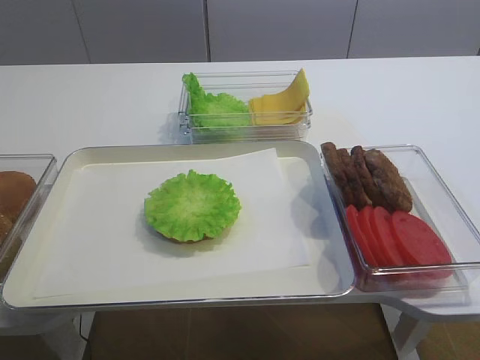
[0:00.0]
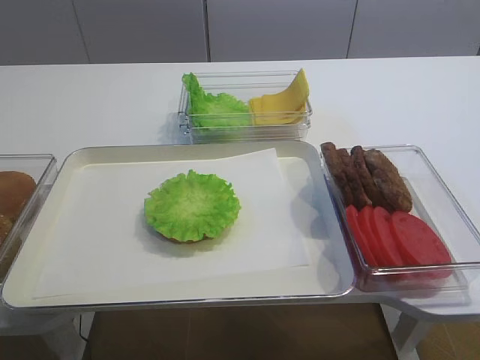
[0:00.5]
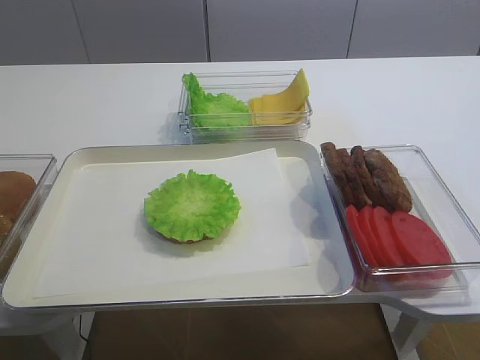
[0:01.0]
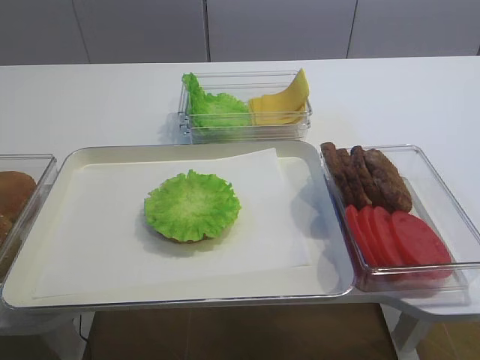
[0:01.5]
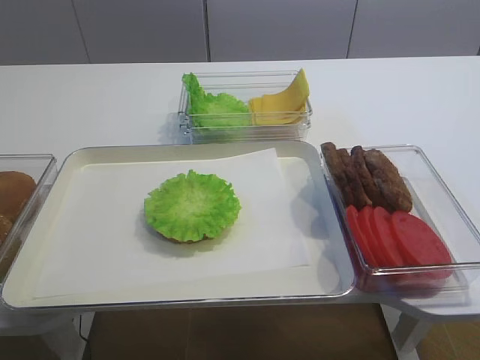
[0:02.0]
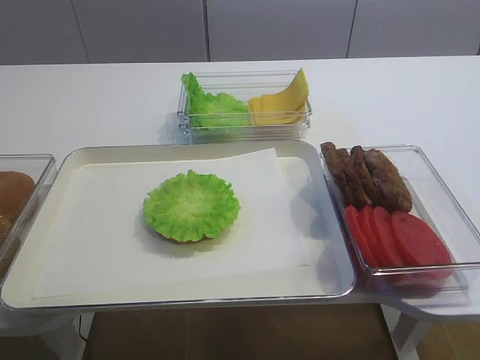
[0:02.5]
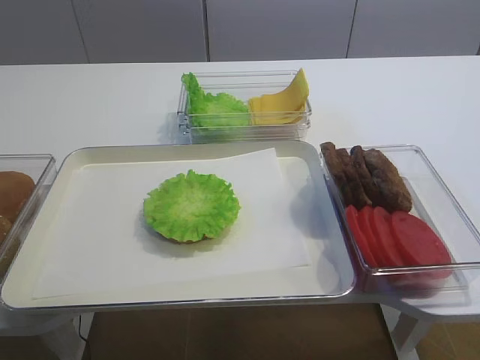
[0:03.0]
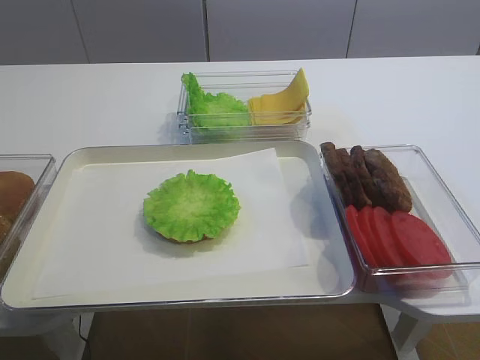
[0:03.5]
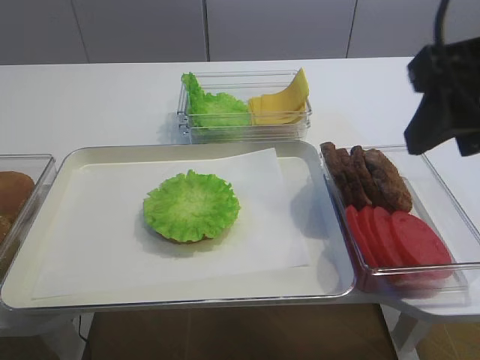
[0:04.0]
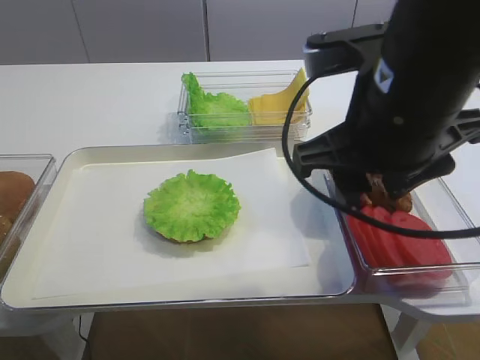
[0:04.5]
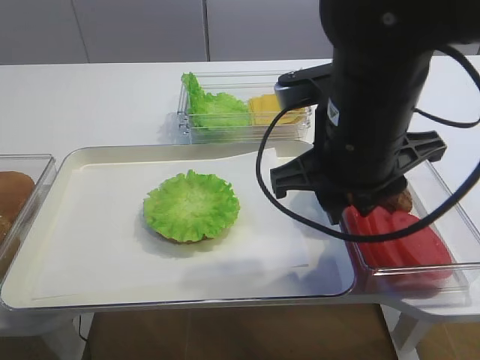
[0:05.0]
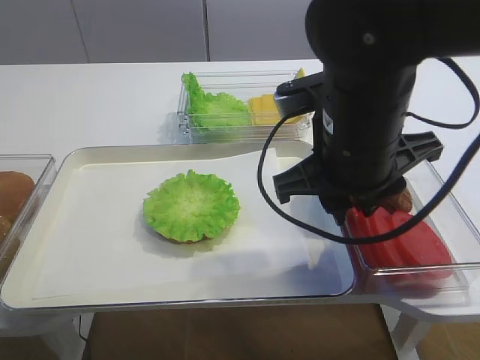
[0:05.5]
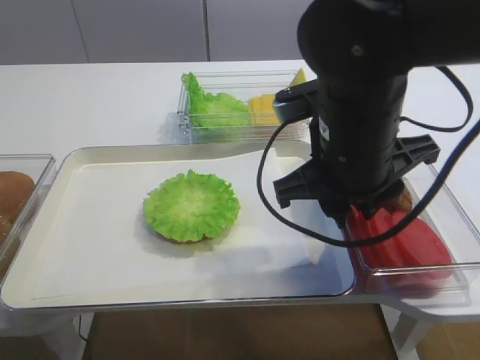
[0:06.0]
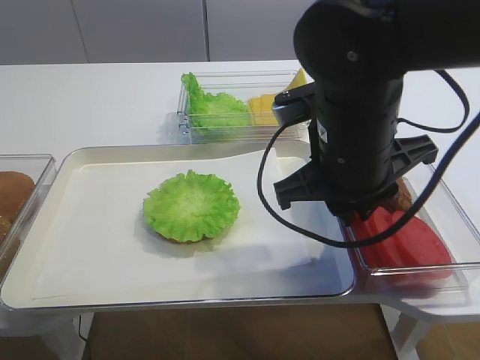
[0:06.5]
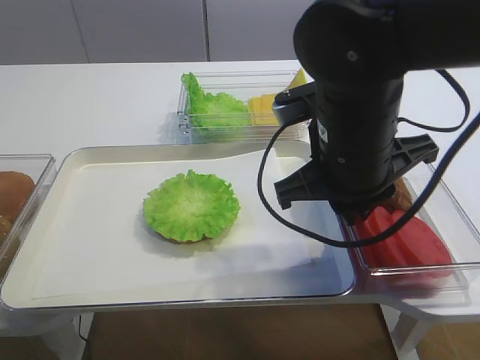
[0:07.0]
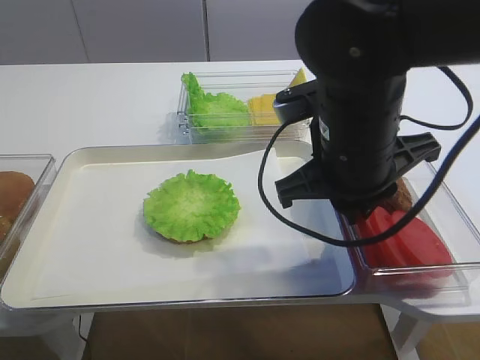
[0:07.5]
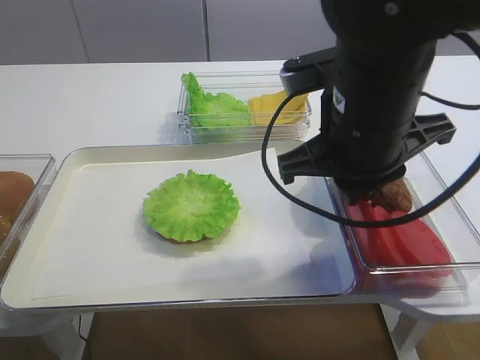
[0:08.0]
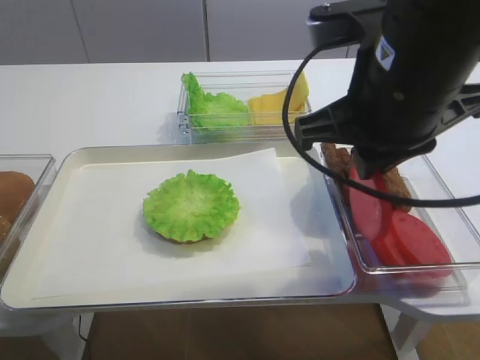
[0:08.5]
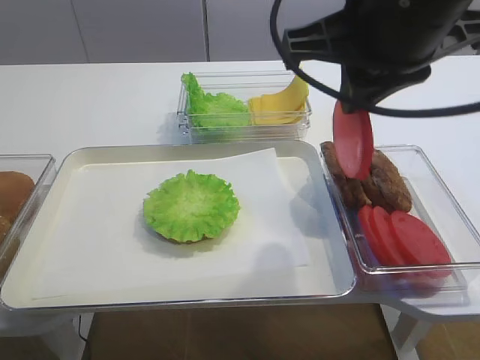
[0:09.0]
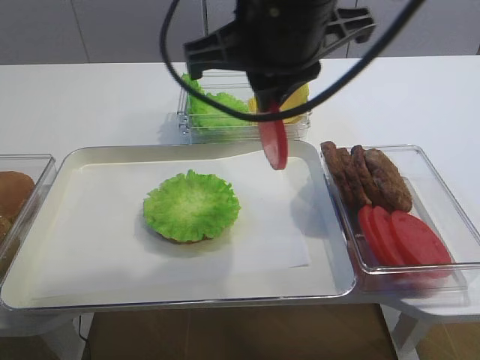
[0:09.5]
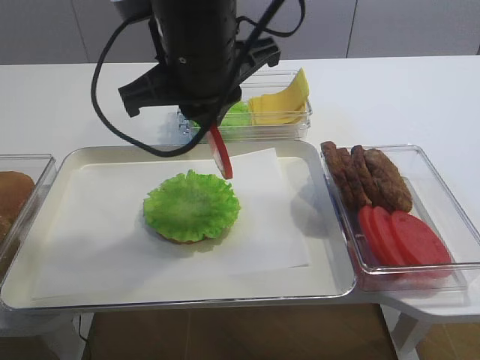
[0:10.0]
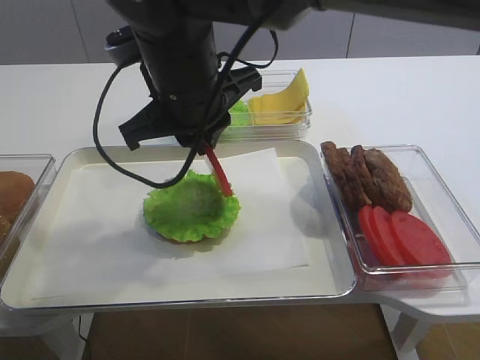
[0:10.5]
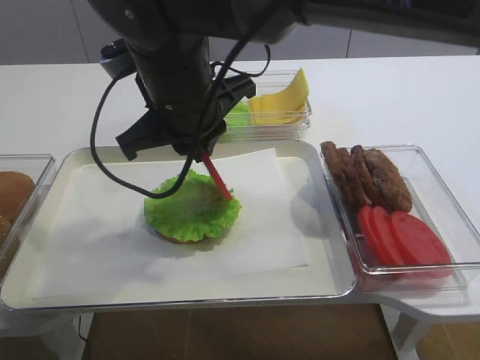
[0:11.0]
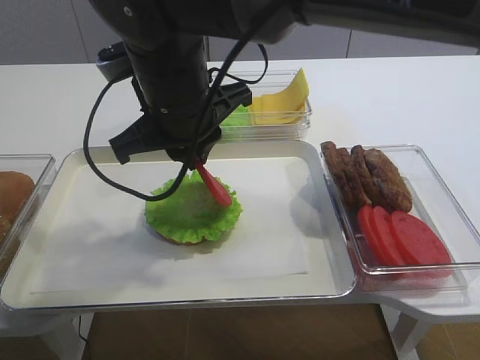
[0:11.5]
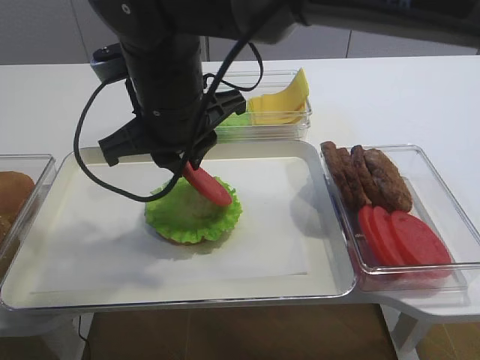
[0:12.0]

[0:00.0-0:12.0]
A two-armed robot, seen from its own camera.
Step, 0:00.0 to 0:08.5: Pick up the tomato slice with the right gripper.
0:02.0 to 0:04.0: The right gripper shifts some 20 cm forward and to the left.
0:04.0 to 0:06.0: The right gripper shifts approximately 15 cm downward, to the left and forward, and closes.
0:06.0 to 0:08.0: The right gripper closes.
0:08.0 to 0:10.0: The right gripper heads to the left, covering roughly 10 cm.
0:10.0 to 0:12.0: The right gripper ends up approximately 5 cm from where it was.

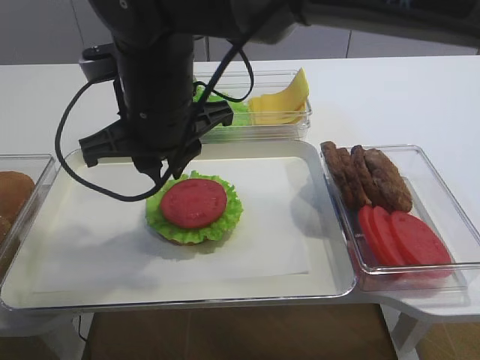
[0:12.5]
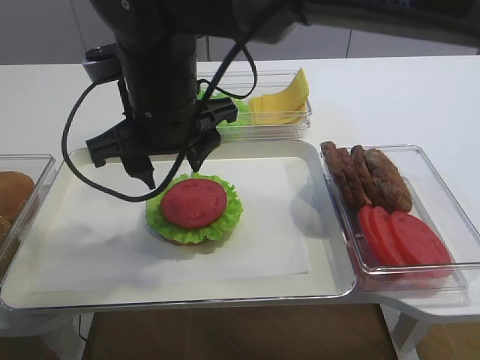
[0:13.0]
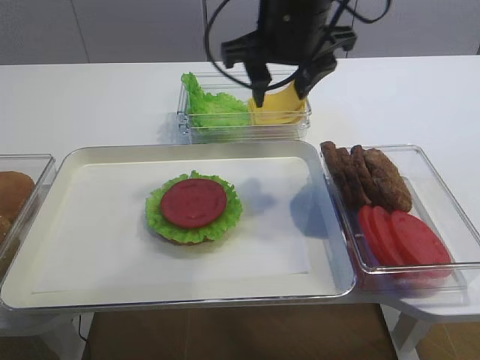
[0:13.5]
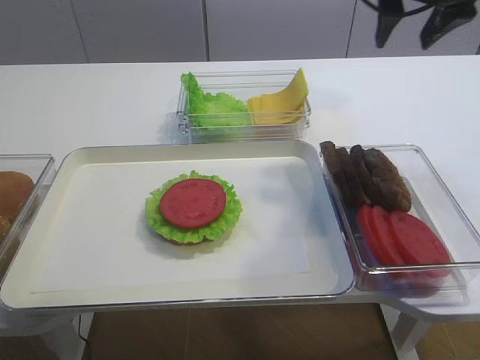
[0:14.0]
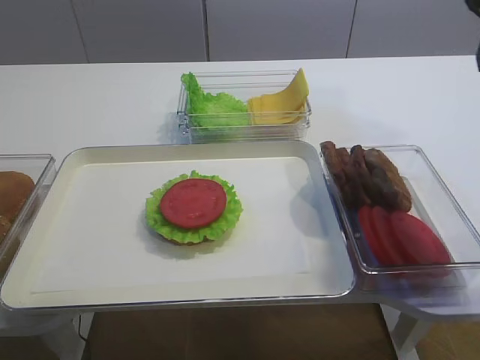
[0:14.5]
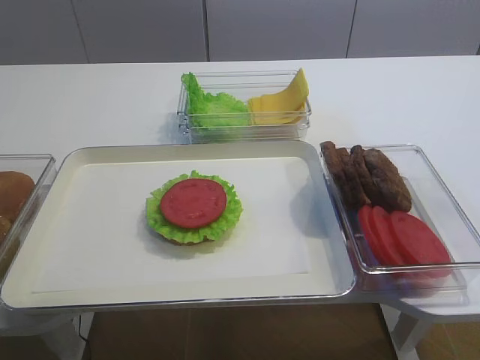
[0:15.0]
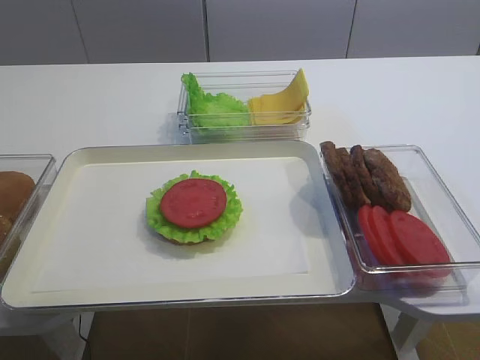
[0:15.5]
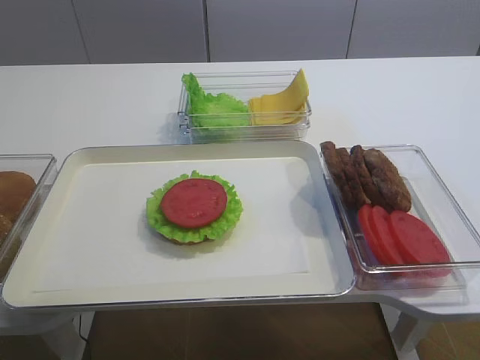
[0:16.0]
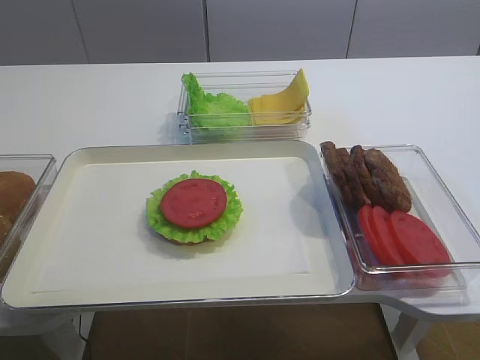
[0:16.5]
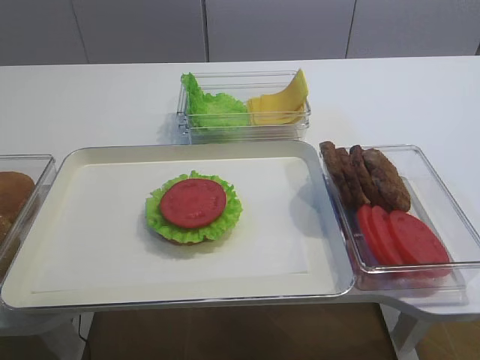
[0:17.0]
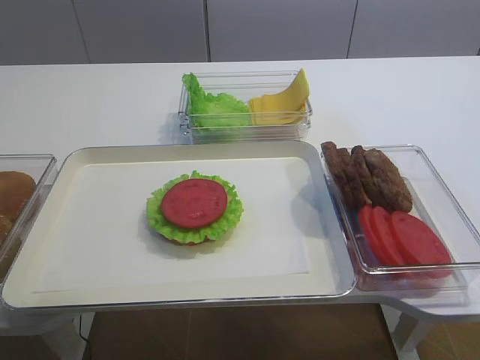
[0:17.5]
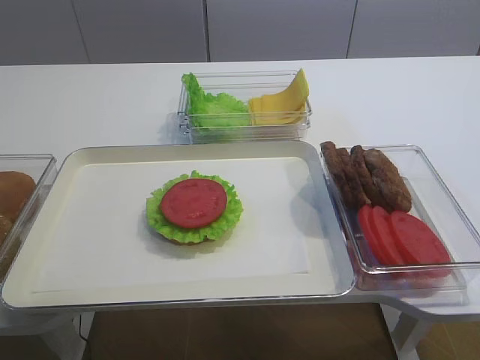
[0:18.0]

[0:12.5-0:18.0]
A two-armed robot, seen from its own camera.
0:12.5 to 0:14.5: The right gripper heads to the right, covering some 30 cm, and opens up.
0:14.5 to 0:16.0: The right gripper moves backward, approximately 35 cm.

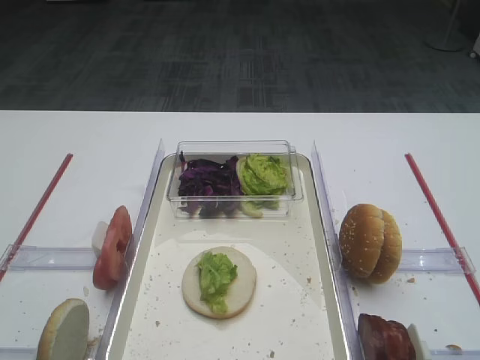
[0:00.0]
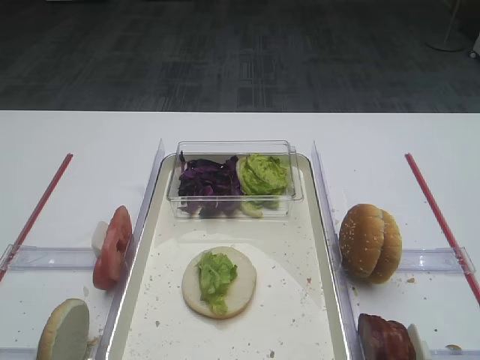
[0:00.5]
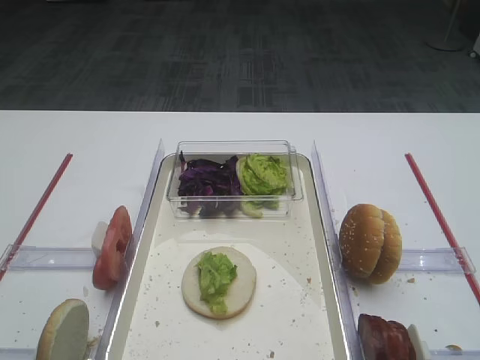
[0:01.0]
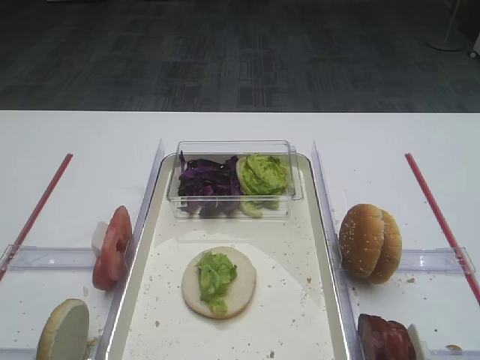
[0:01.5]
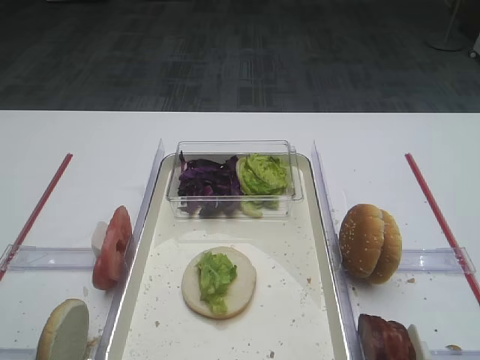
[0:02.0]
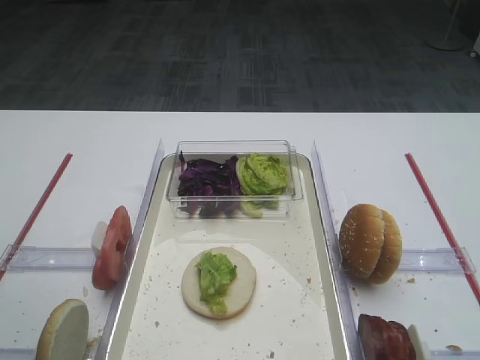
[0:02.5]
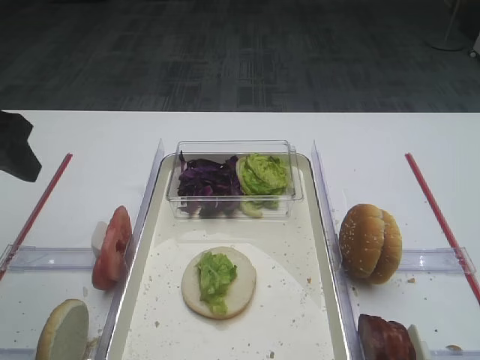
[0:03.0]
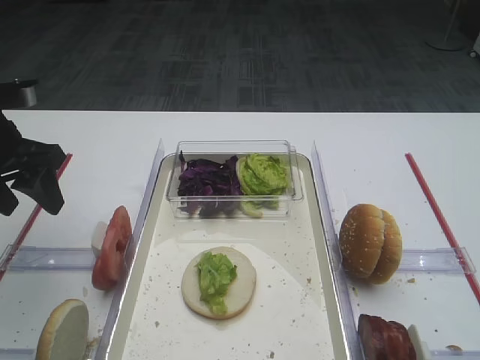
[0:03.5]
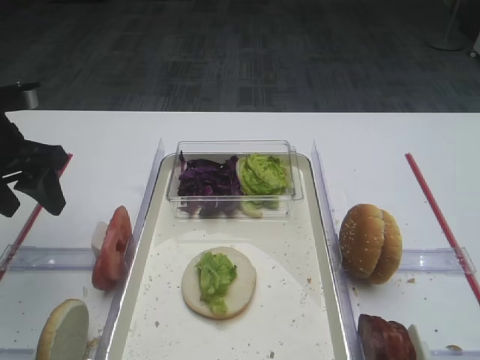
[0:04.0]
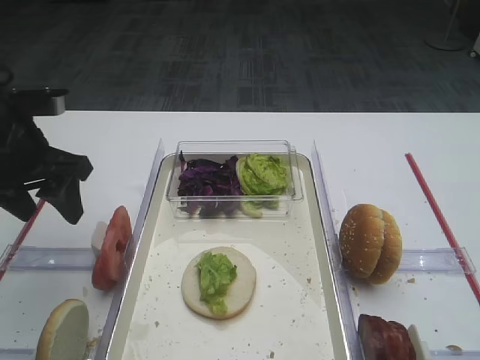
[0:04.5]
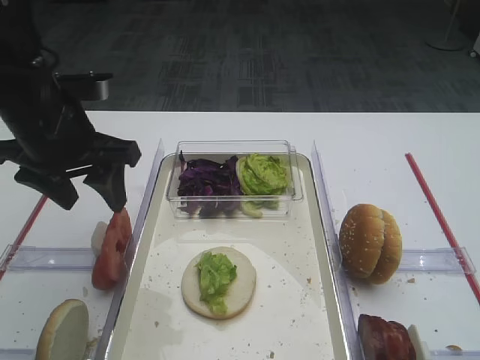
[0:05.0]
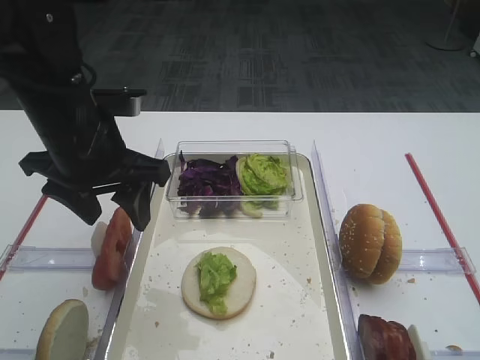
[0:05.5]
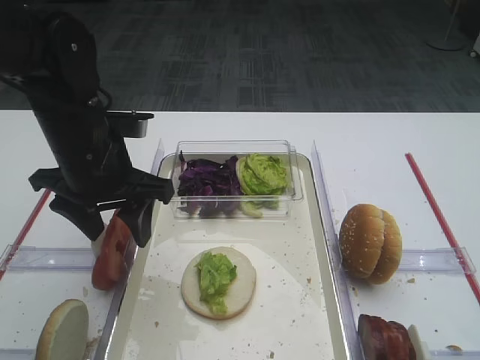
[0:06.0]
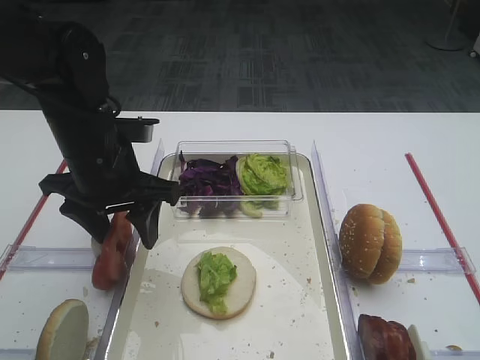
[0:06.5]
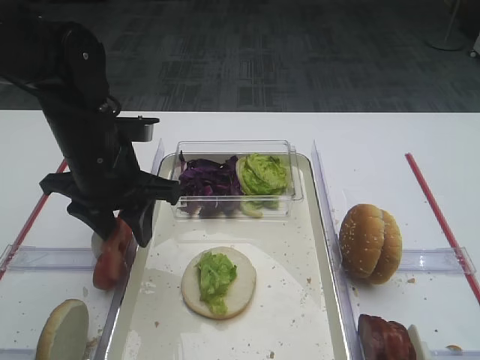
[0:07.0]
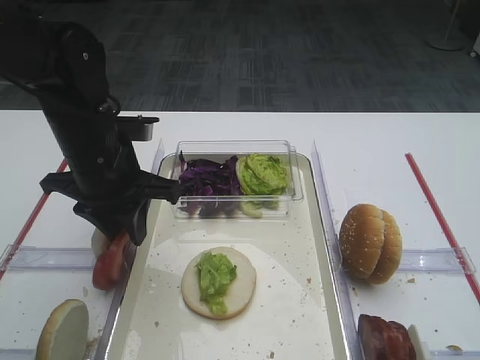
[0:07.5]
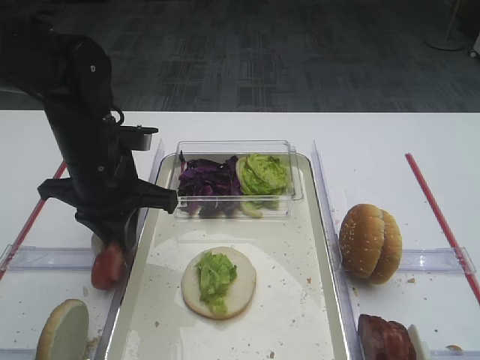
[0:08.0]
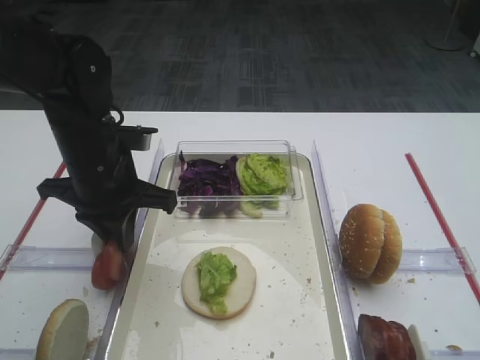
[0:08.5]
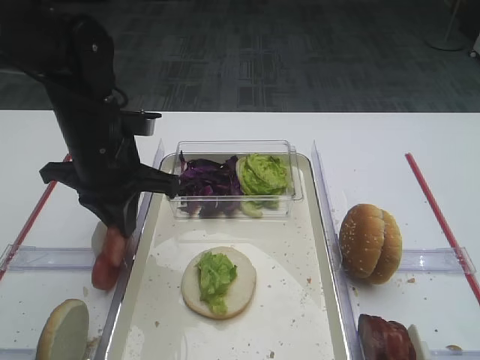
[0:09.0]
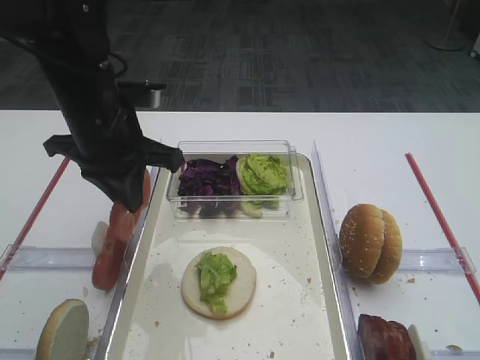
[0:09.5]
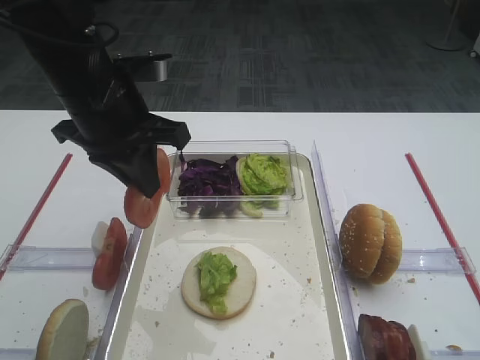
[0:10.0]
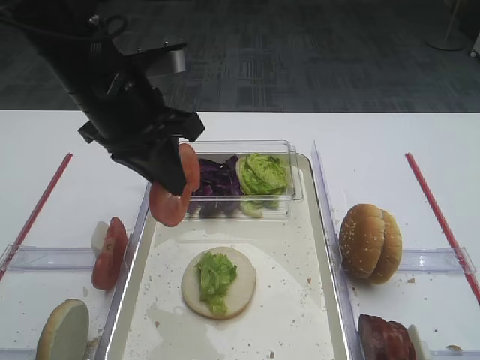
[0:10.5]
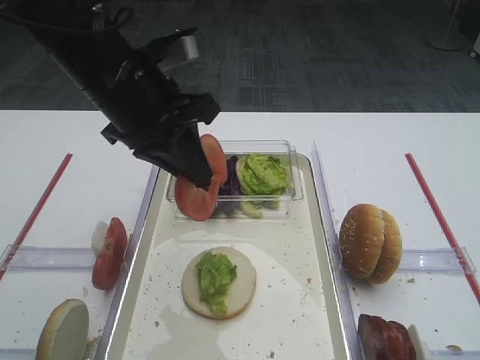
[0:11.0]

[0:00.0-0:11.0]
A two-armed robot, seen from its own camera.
Step, 0:00.0 to 0:09.5: Pick up the tomato slice with the left gripper.
0:02.0 to 0:03.5: The left gripper shifts some 25 cm forward.
0:03.5 to 0:05.5: The left gripper goes roughly 10 cm to the right. The right gripper closes.
0:05.5 to 0:07.5: The left gripper closes.
0:07.5 to 0:09.0: Both grippers stay about where they are.
0:09.0 to 0:11.0: The left gripper shifts approximately 10 cm upward.
